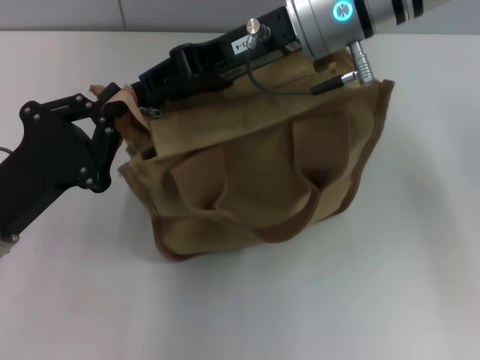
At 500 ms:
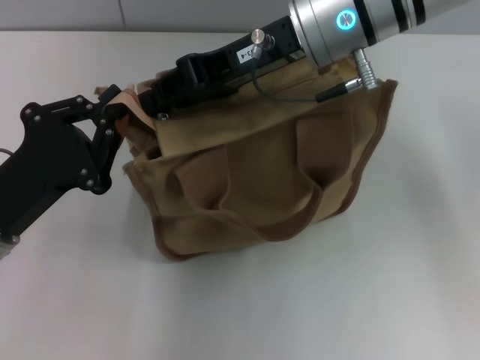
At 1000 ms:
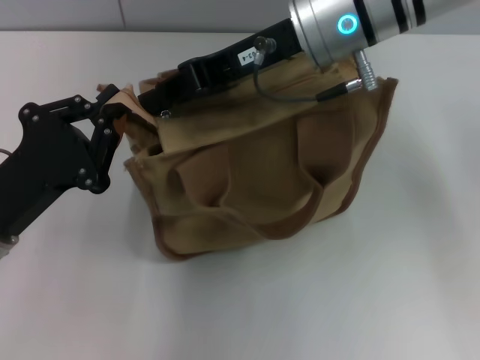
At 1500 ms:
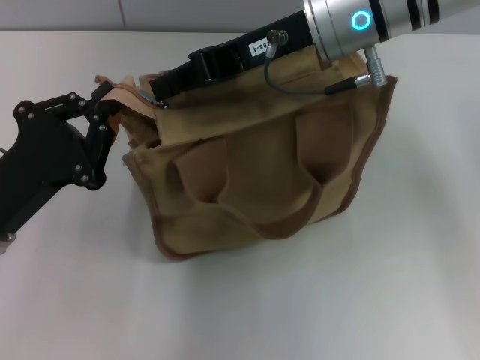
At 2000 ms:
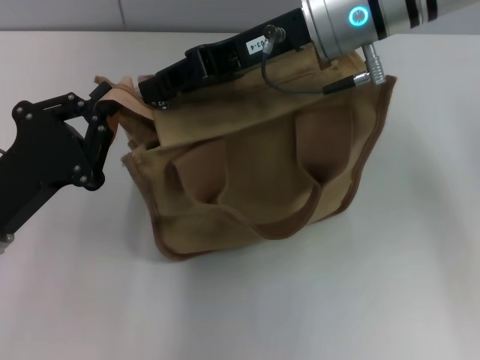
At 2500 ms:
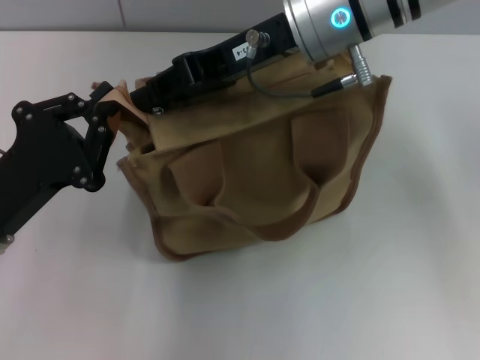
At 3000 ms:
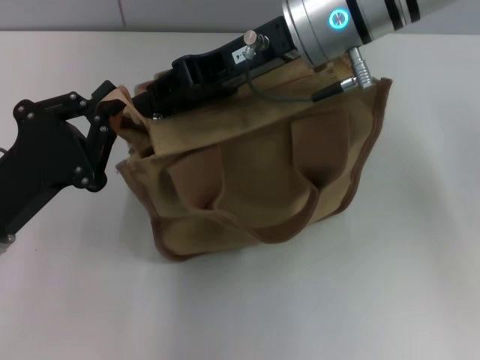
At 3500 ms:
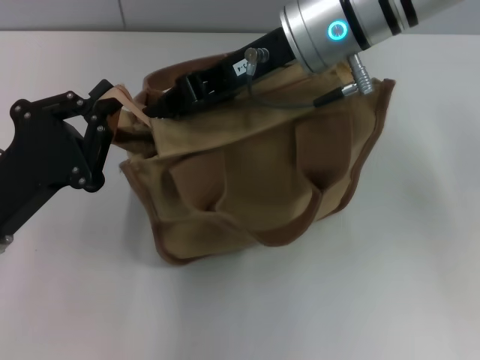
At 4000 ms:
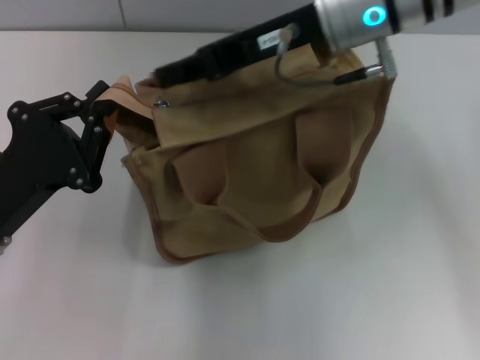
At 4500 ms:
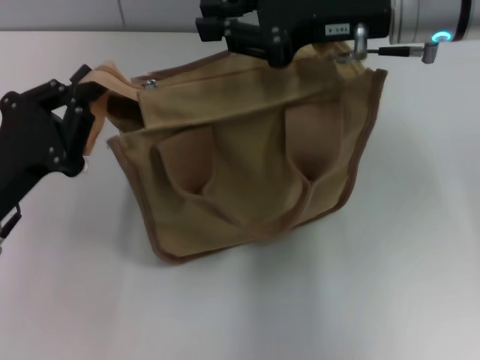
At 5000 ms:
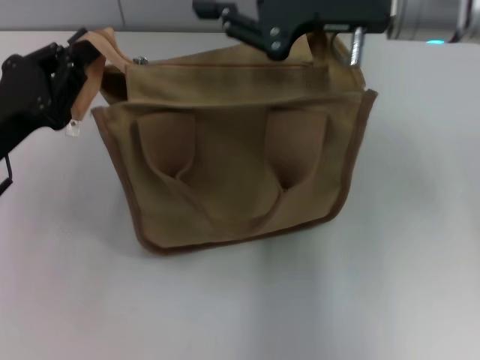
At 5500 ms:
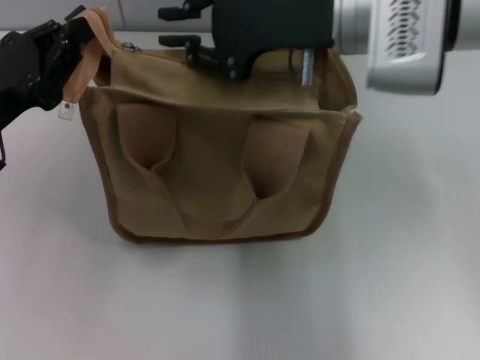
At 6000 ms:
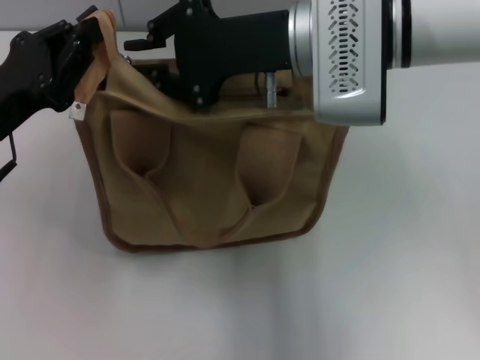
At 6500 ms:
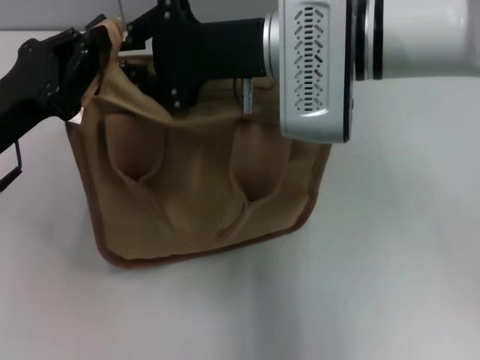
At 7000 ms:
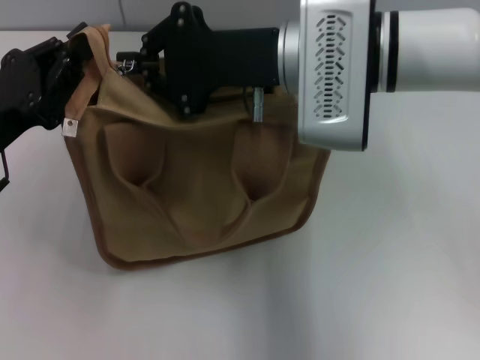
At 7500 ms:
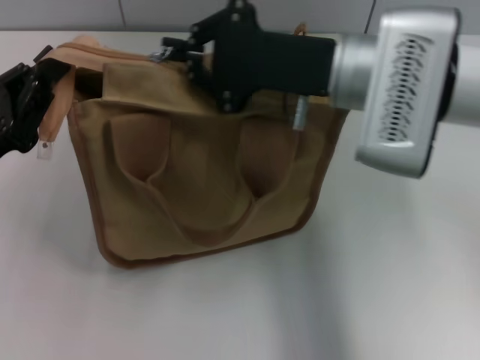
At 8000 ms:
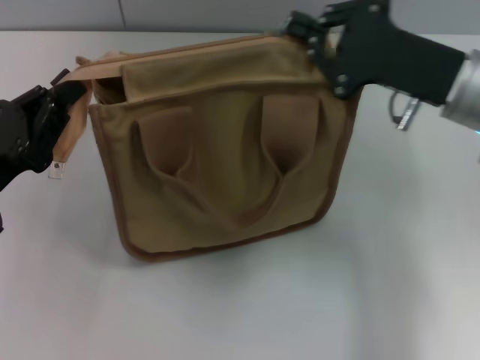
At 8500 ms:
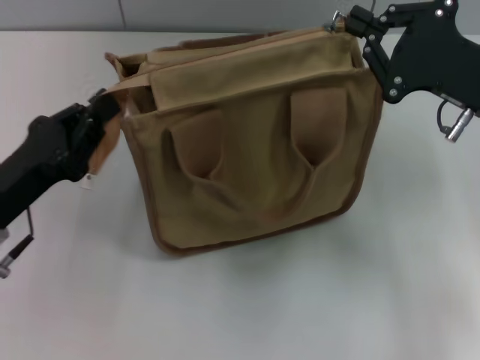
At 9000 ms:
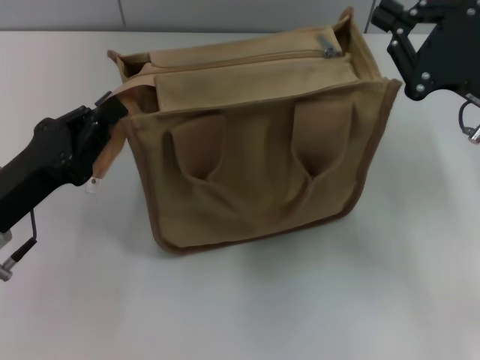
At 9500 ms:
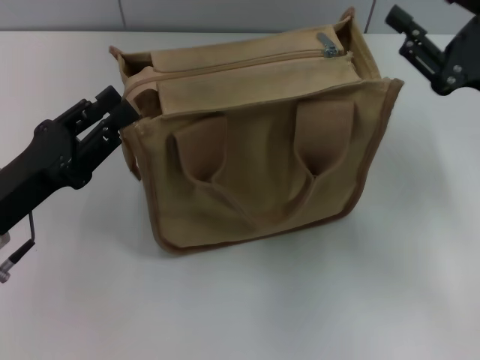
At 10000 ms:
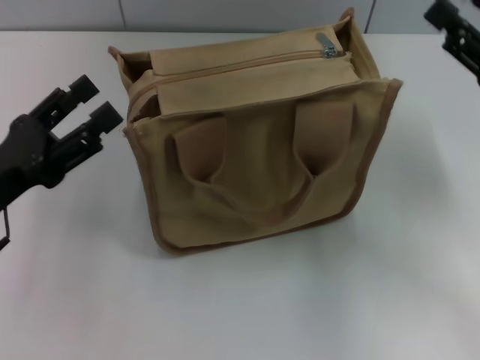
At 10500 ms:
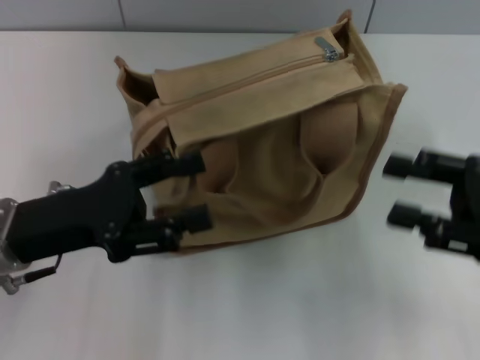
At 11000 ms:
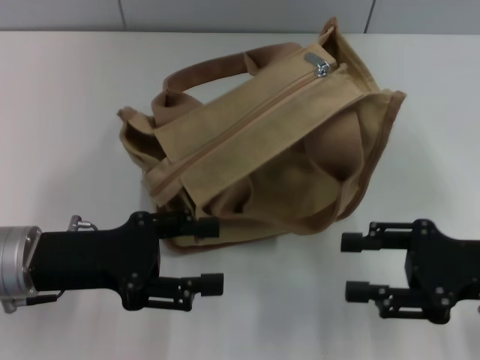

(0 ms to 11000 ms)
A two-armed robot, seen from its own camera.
Step, 0 ms - 8500 ms: Pull up the zipper with your right hand.
Step, 9500 ms - 10000 ms: Grab the zipper with your left hand.
0 ms - 3500 ms: The grippers stay close to where they were, moving slightly.
3500 ms - 5500 ms: The left gripper travels forward by approximately 5 cm.
5500 ms - 7500 ms: The right gripper changes place by some 5 cm.
7500 ms - 9000 ms: The right gripper moves to the right, approximately 15 cm.
9000 ms - 11000 ms: The left gripper opens its fingers; the right gripper heads backward and downward, covering some 10 cm, and opens.

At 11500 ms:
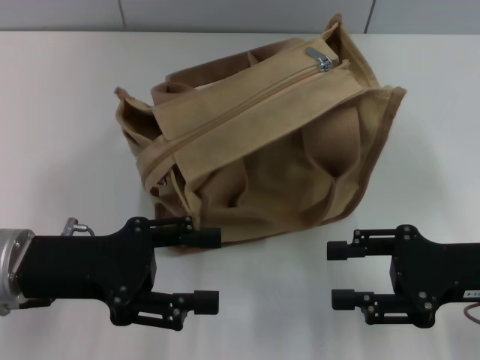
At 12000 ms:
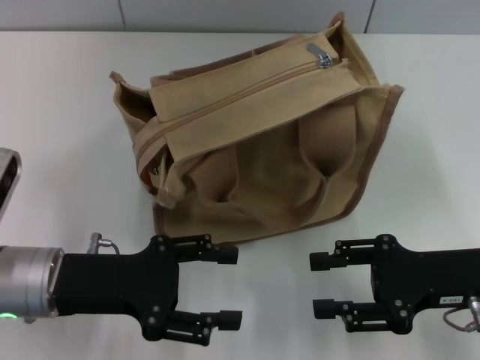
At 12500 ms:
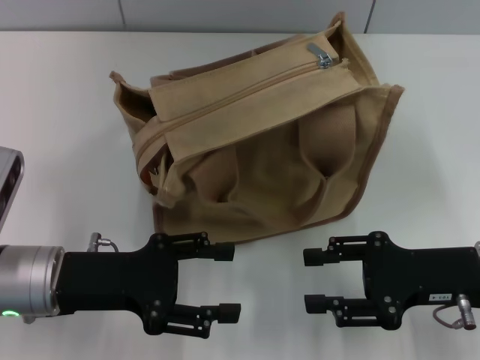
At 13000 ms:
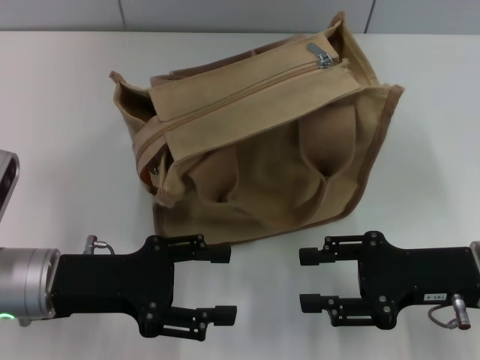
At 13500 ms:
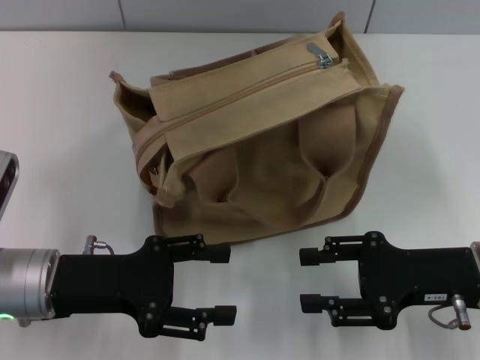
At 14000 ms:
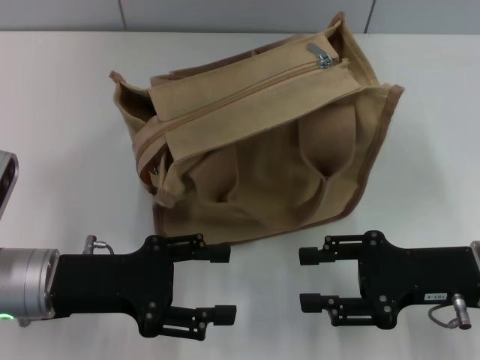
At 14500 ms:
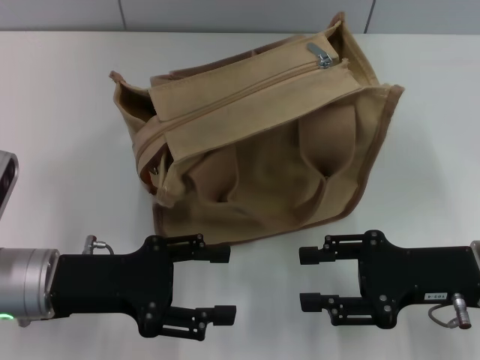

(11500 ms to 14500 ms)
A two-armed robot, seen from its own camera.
13000 ms - 14500 ms: Both grippers stay put.
